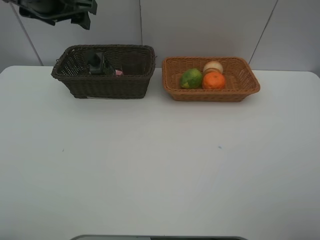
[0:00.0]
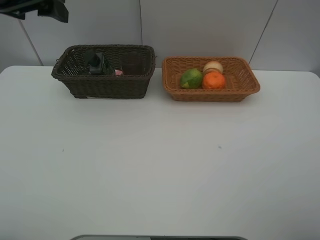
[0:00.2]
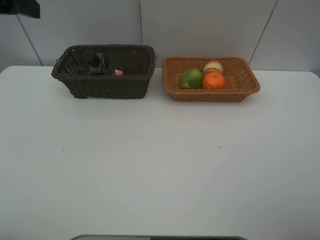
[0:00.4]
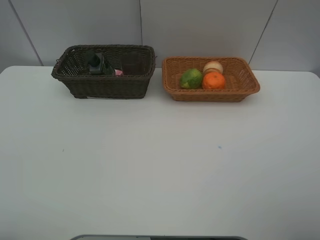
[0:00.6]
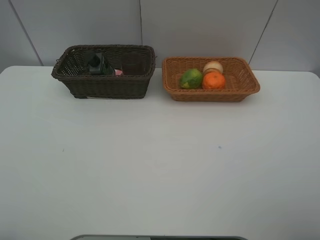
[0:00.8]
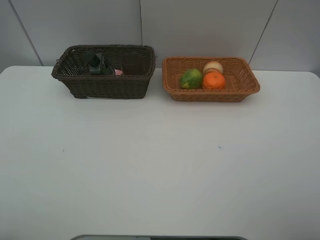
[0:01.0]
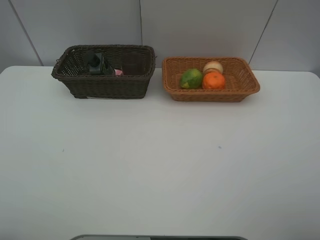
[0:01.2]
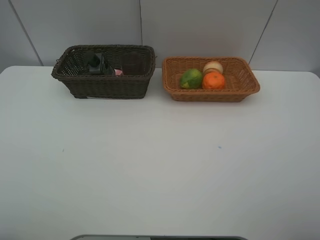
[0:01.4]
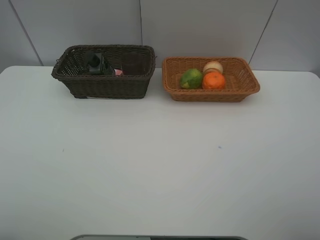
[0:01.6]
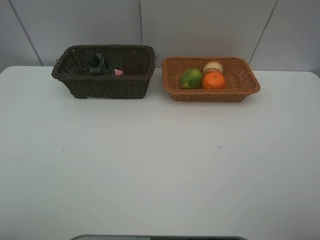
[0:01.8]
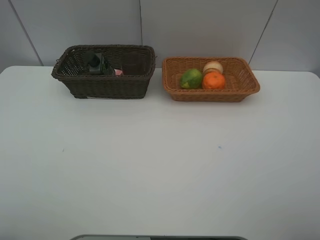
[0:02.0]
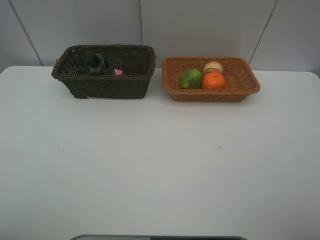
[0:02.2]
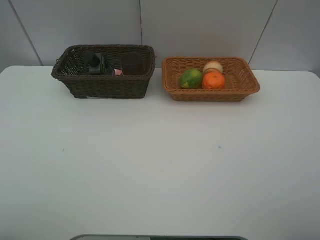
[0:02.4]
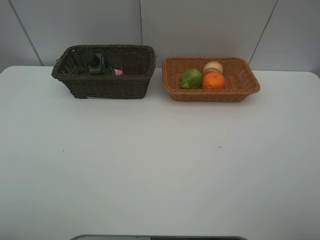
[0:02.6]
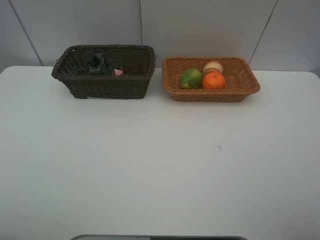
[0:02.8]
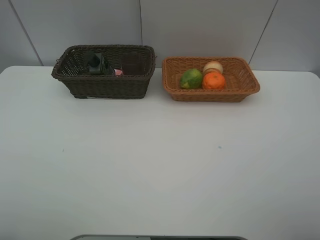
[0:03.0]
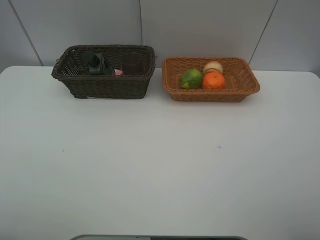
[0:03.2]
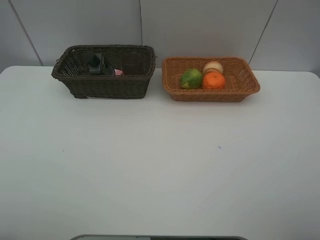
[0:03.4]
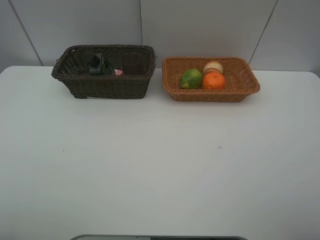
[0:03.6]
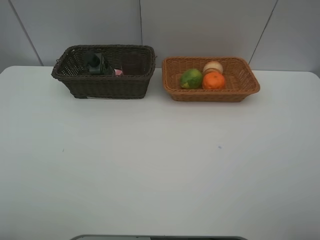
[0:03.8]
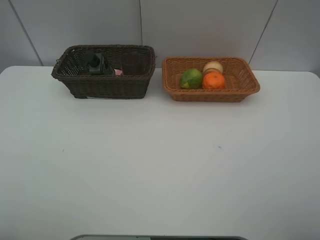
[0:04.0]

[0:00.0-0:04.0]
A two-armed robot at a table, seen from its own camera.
Task of the whole recording: place multiple objects separately in different baskets.
0:00.0 to 0:01.4: The left gripper heads backward, covering about 35 cm.

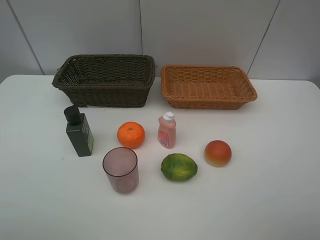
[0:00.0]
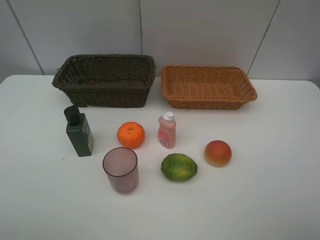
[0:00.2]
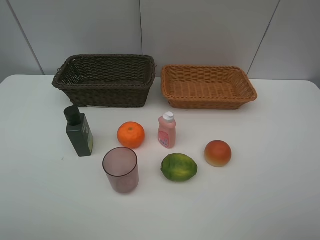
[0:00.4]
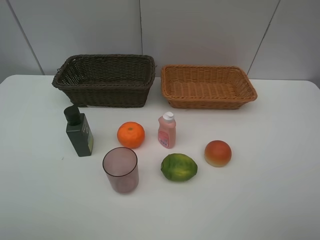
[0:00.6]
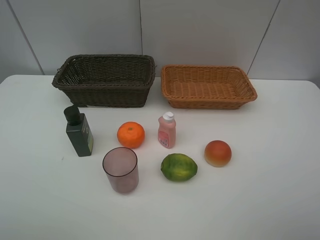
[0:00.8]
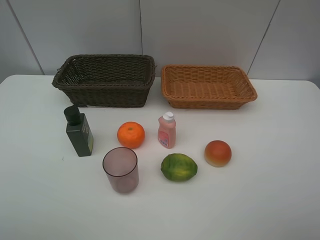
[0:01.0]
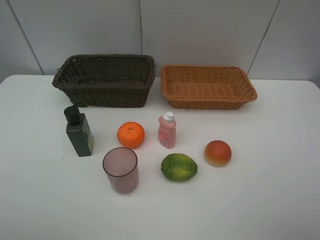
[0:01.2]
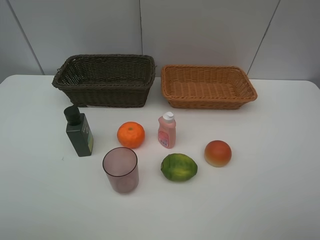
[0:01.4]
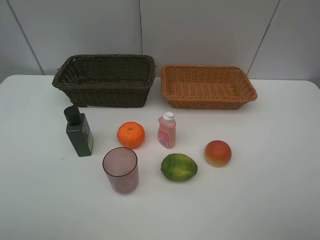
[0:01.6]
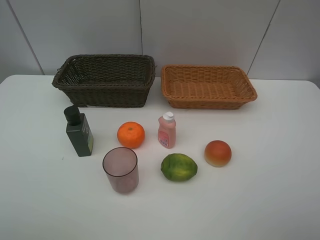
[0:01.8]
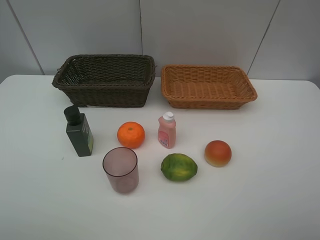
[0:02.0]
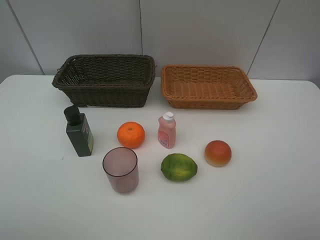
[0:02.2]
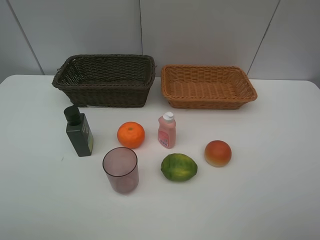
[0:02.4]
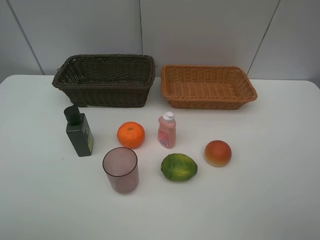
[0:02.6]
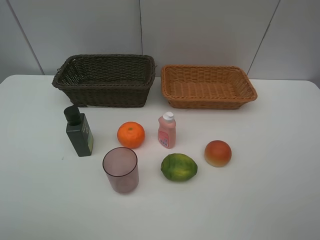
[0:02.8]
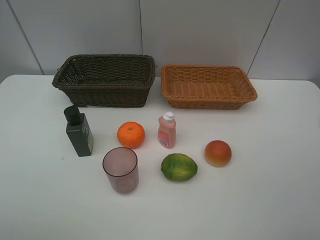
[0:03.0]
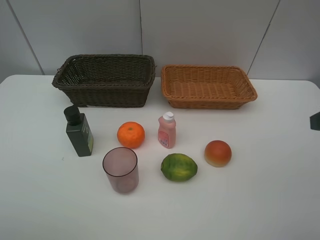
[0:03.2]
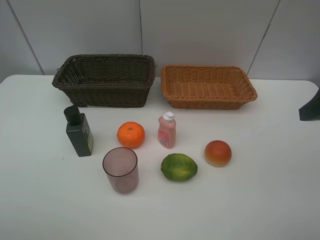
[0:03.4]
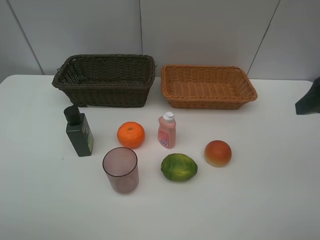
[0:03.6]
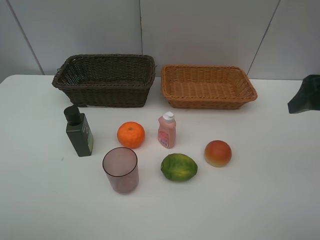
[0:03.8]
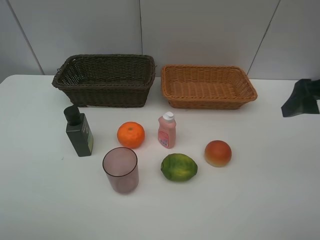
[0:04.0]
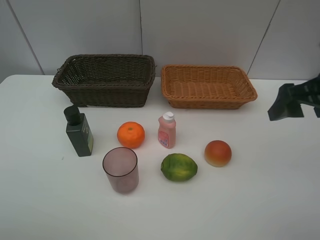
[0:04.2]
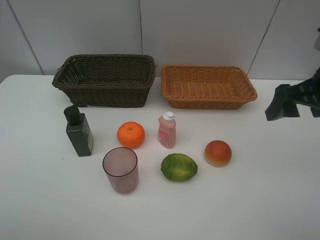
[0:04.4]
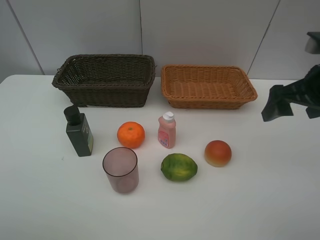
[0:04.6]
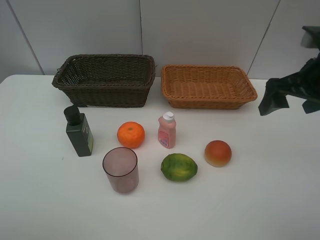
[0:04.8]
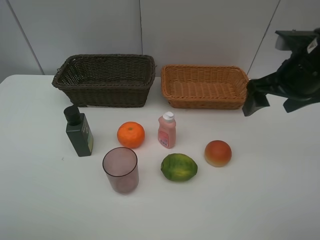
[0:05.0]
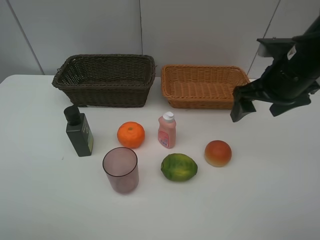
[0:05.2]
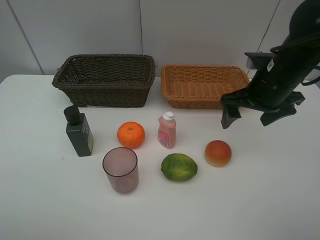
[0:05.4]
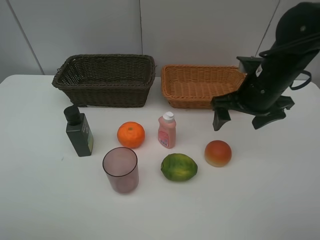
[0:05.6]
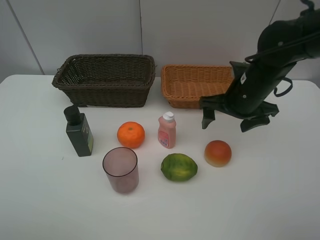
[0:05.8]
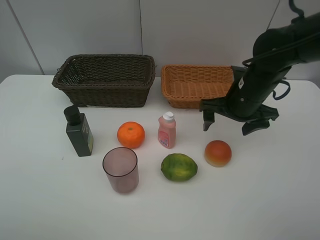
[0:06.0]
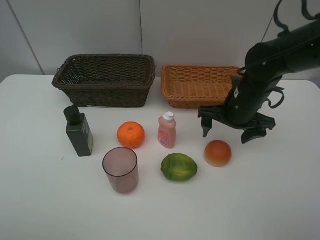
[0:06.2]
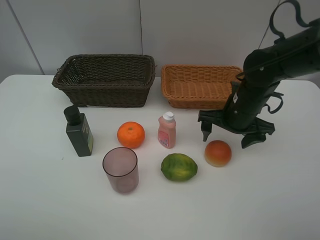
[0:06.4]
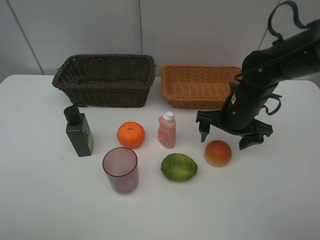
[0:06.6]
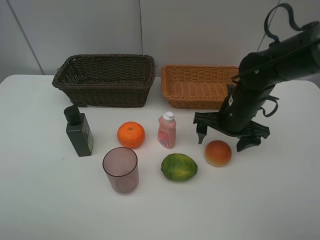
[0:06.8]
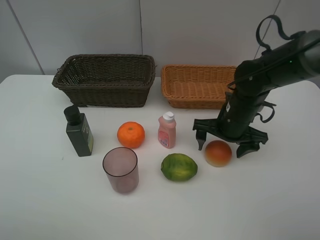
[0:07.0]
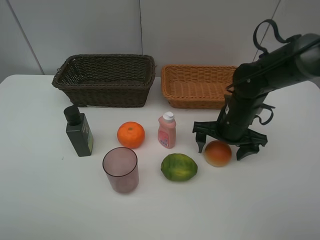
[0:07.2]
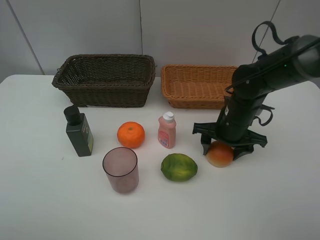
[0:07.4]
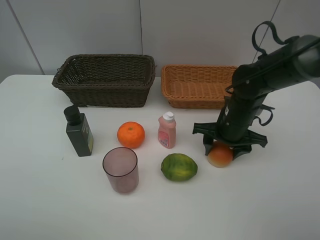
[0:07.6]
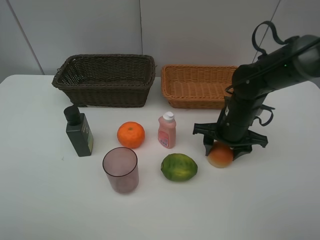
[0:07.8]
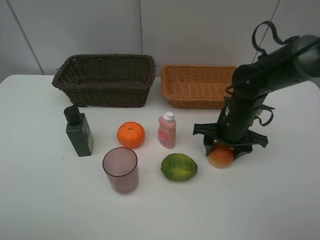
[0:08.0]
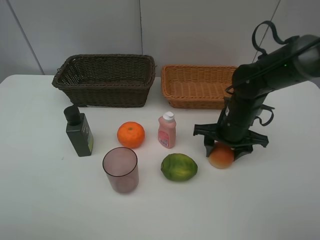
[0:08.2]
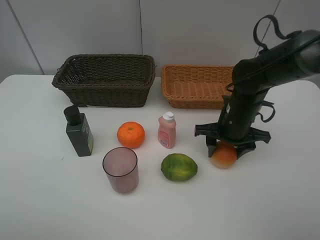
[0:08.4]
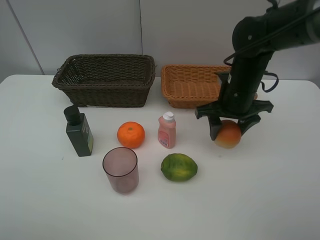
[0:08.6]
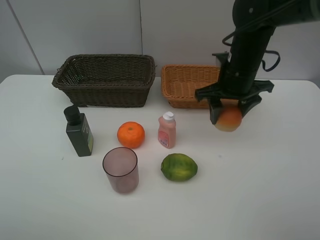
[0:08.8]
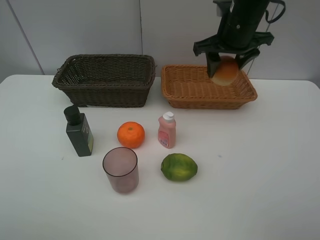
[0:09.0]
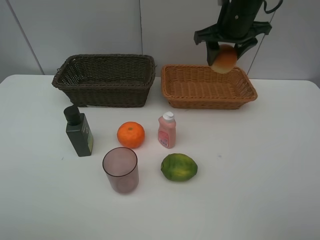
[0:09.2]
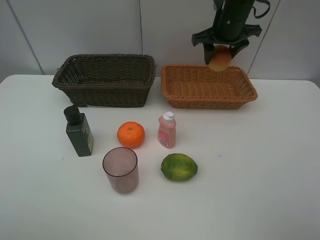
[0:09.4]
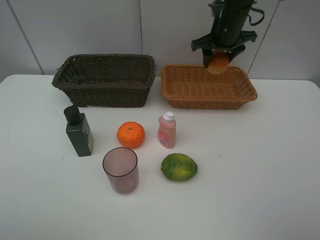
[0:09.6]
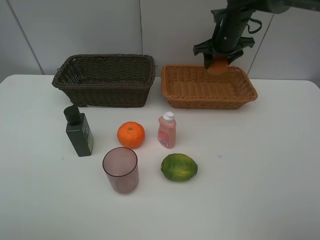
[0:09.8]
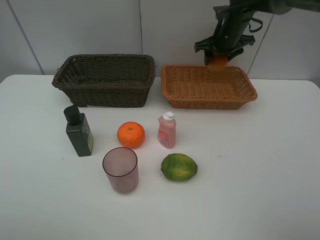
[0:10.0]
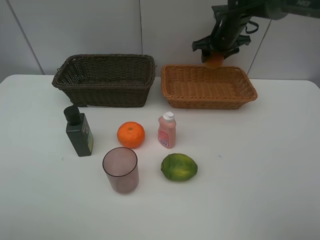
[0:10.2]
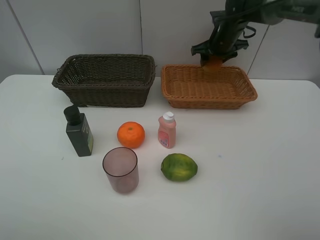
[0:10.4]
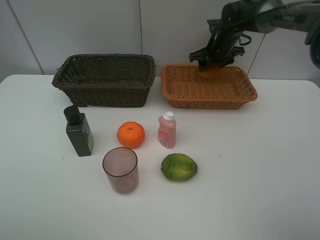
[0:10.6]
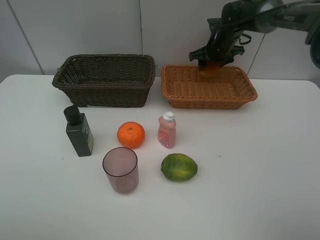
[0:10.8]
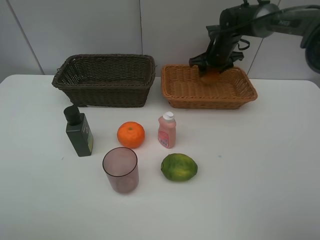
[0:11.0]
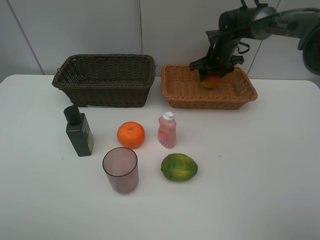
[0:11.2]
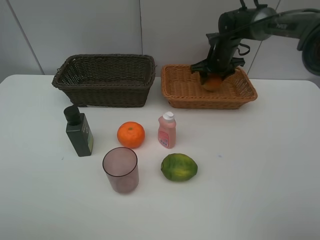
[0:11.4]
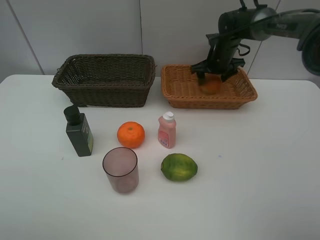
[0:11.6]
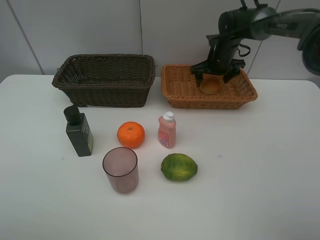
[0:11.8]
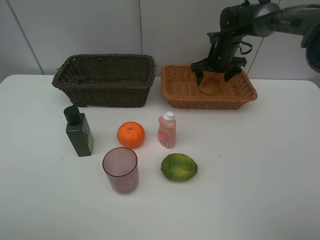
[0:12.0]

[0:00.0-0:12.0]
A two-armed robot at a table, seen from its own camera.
Task of the whole recording: place multiple objects separately in different baskets.
0:00.0 to 0:01.6: Both grippers stay put.
0:03.0 to 0:04.4: The right gripper travels forward by about 10 cm.
0:04.4 to 0:06.0: The right gripper is displaced downward, to the left and forward by roughly 15 cm.
0:06.0 to 0:07.6: The right gripper shifts roughly 5 cm downward, and closes up.
0:07.6 to 0:09.0: The right gripper goes approximately 20 cm upward and forward.
0:09.0 to 0:10.4: The right gripper is displaced forward and downward by about 15 cm.
0:10.4 to 0:12.0: The right gripper opens.

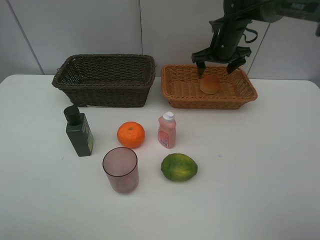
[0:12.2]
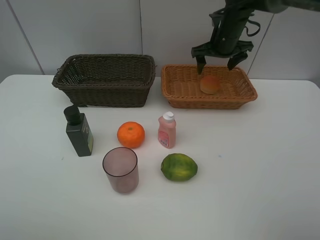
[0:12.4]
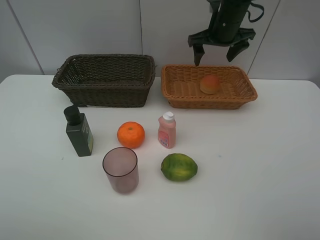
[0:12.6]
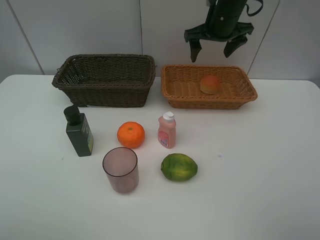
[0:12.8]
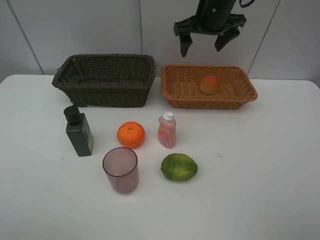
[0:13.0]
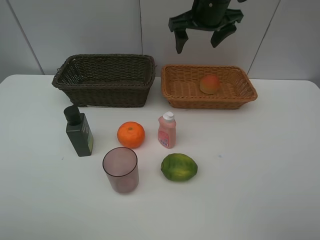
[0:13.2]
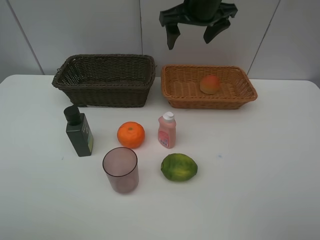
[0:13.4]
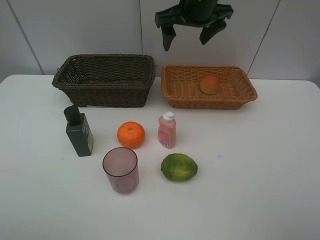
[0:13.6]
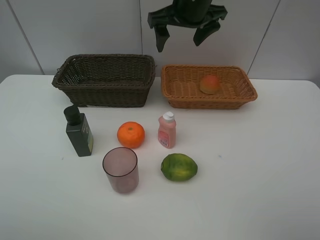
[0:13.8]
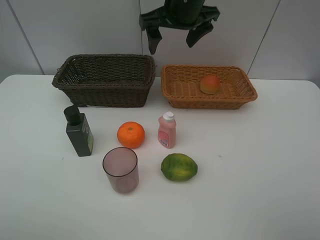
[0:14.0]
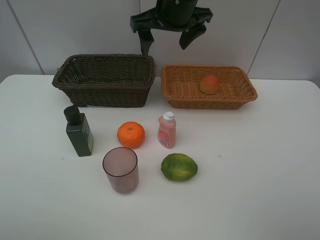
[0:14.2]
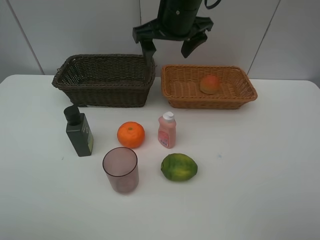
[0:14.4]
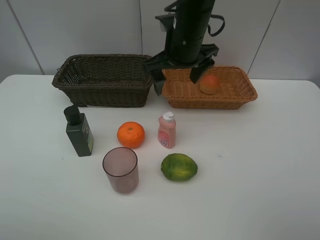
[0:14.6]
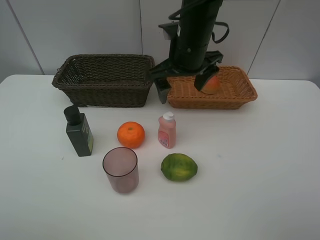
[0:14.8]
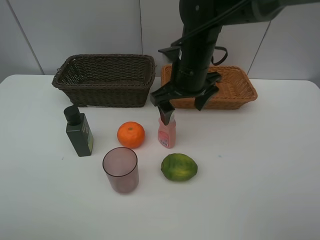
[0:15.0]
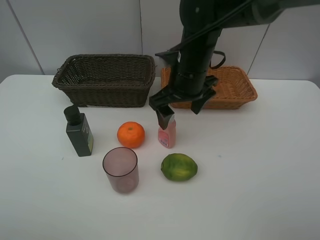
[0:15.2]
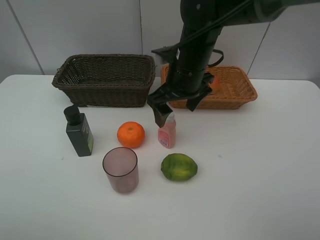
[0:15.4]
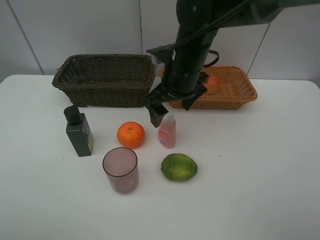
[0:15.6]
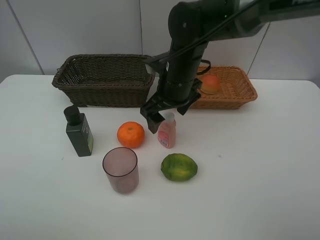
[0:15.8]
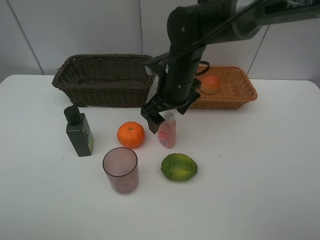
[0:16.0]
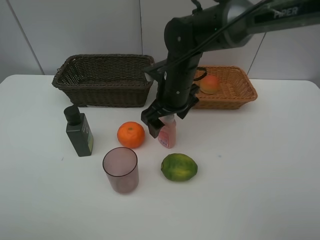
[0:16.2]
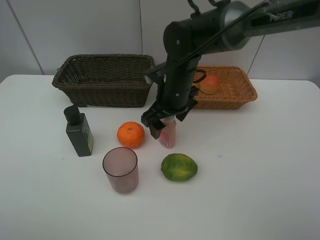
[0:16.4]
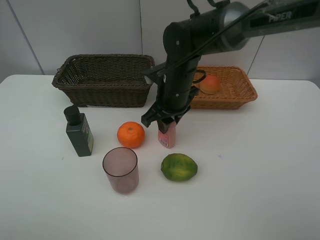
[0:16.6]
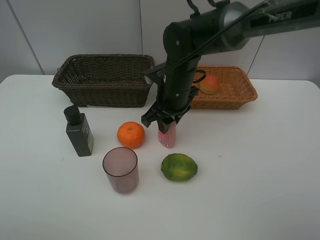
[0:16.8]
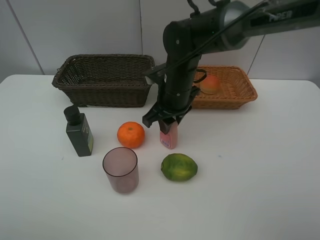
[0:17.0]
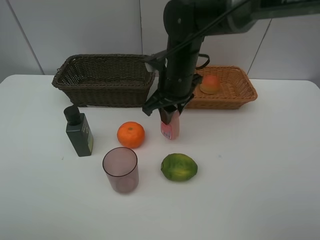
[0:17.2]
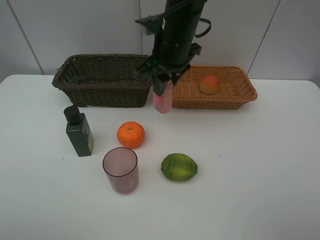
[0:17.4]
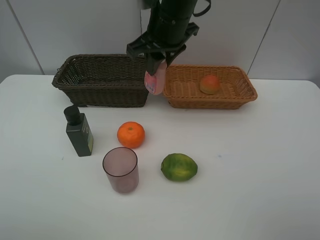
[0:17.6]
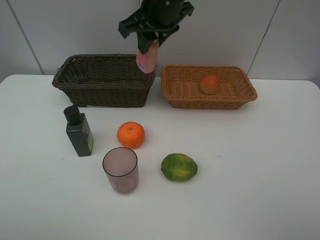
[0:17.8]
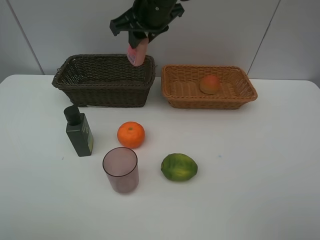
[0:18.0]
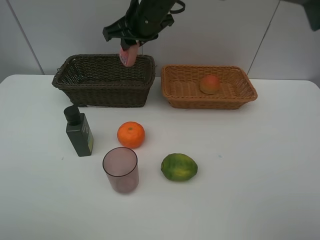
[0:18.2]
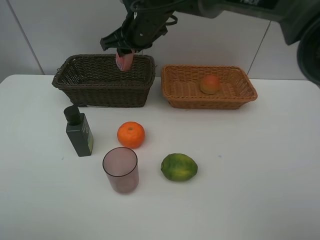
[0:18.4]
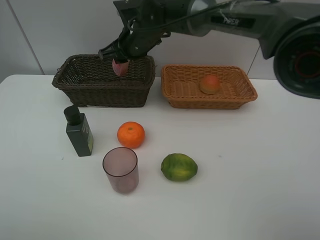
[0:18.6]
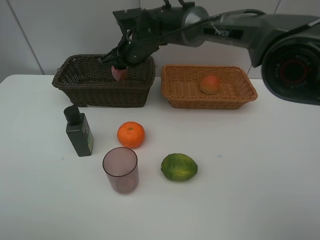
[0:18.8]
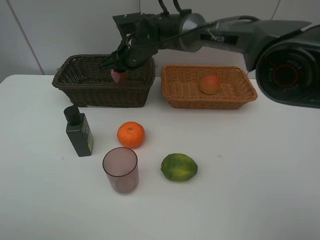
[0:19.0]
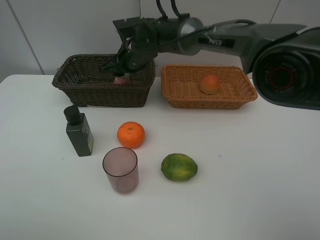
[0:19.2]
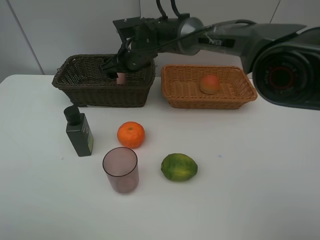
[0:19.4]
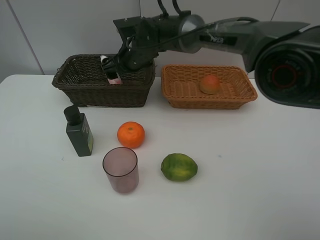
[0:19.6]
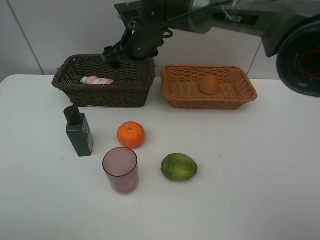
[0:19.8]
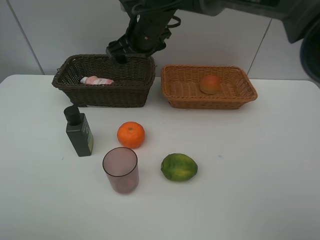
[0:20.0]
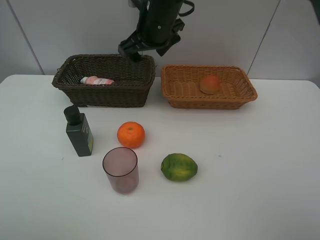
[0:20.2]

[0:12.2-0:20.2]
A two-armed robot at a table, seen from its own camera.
Task of the whole recording: place multiple objects separately in different baskets.
0:12.2 to 0:13.8: The right gripper shifts roughly 20 cm upward, to the left and backward.
0:13.8 to 0:15.4: The right gripper moves downward and backward, some 10 cm.
0:15.4 to 0:17.0: The right gripper closes.
0:17.0 to 0:18.6: The right gripper goes about 15 cm forward and to the left, and reaches approximately 15 cm upward, then returns.
0:18.6 to 0:20.2: The right gripper heads upward, covering roughly 5 cm, and opens up.
